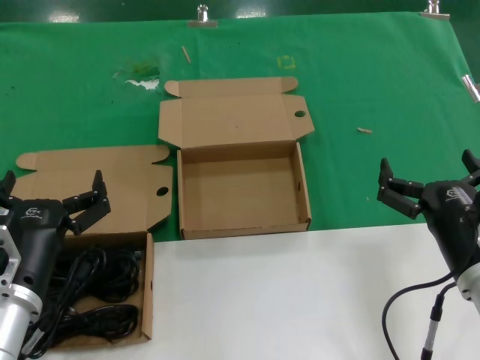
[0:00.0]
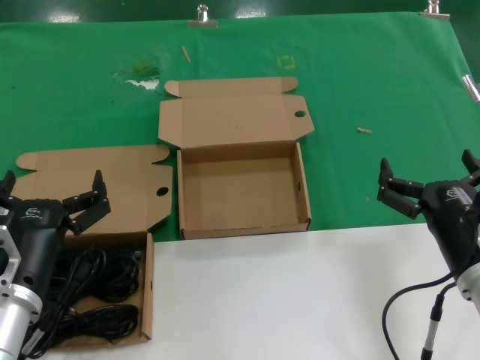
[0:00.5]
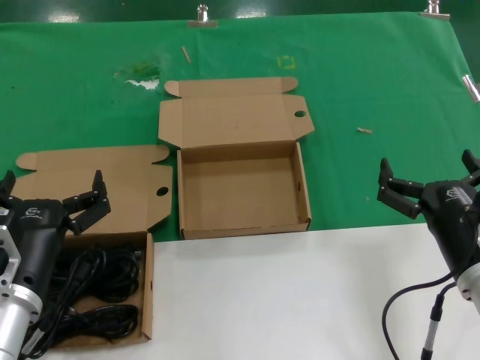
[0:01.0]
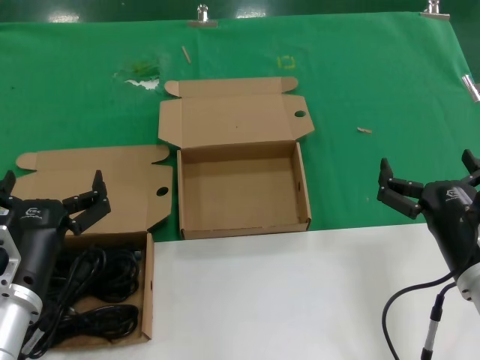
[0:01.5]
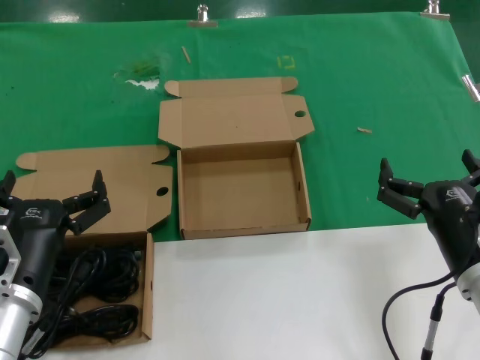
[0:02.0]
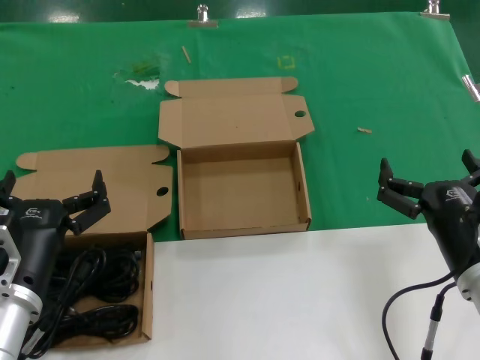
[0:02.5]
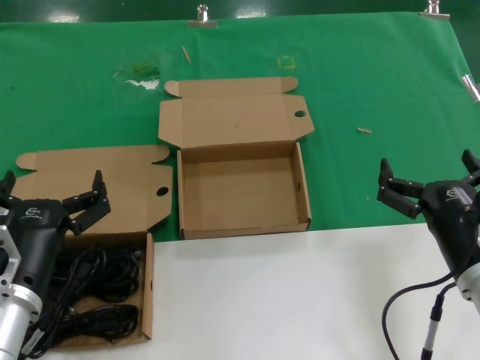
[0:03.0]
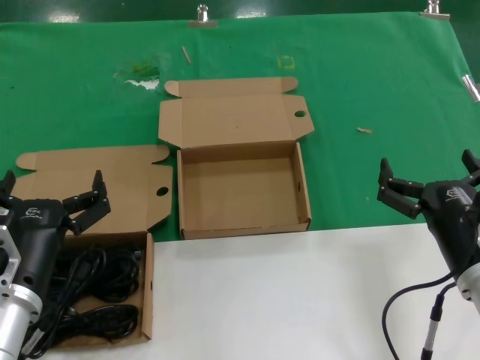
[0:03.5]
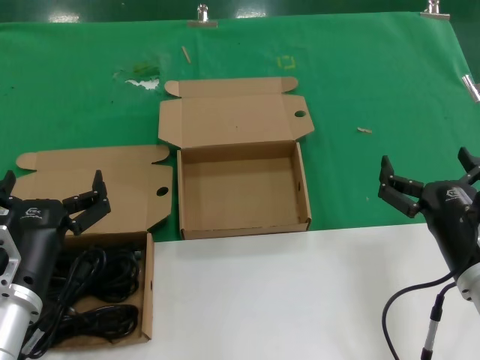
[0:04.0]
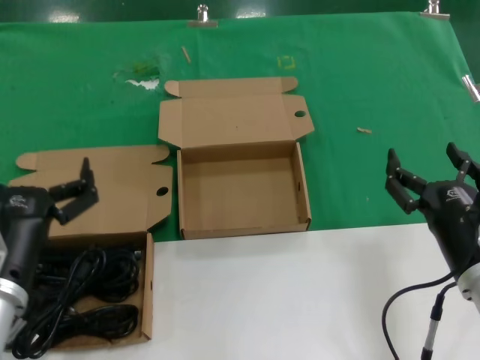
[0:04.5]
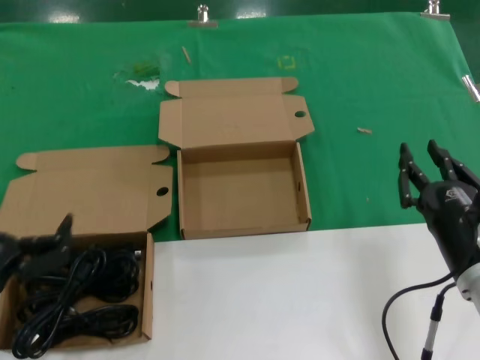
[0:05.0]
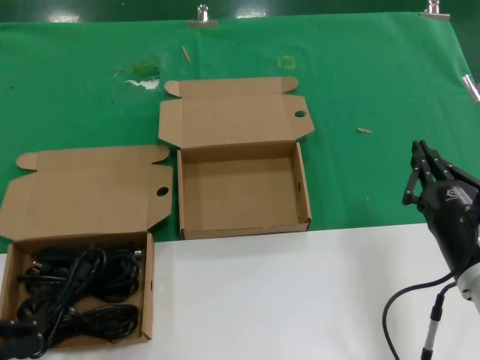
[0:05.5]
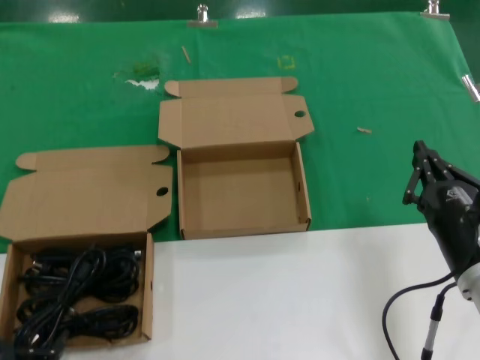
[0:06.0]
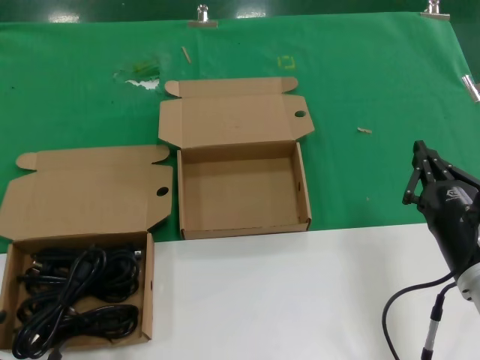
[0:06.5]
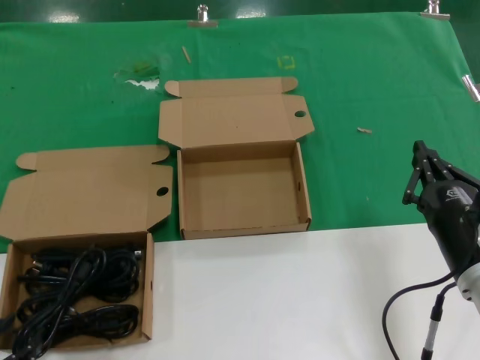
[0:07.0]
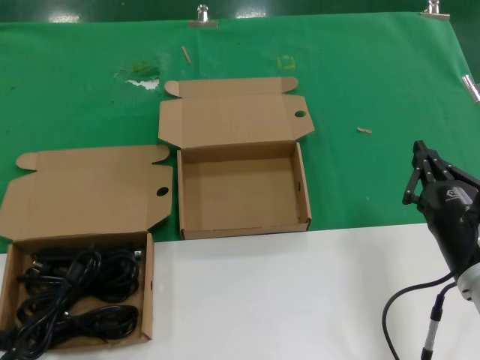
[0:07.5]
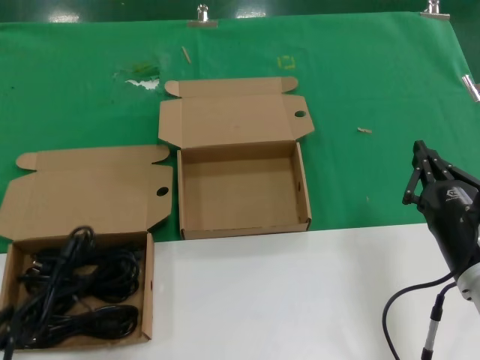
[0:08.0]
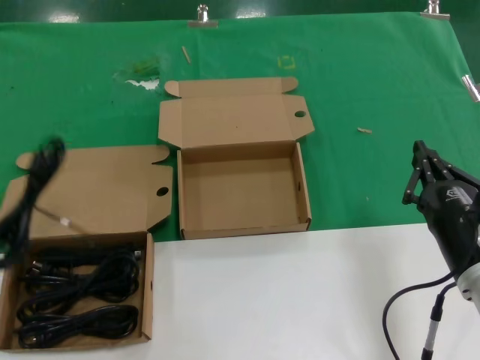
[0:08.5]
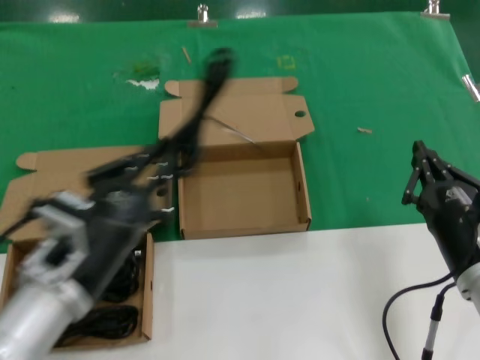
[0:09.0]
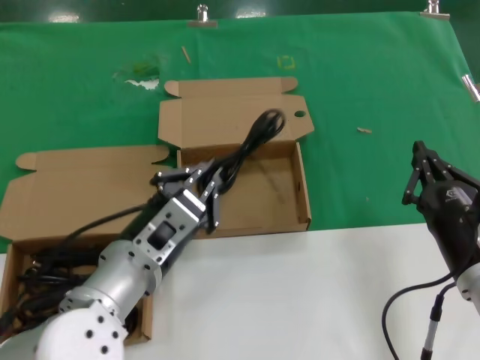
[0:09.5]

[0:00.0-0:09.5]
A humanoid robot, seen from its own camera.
Task of the whole recording: Pick up the power cord from the box containing it and place it in another box.
Step, 0:00.0 to 0:07.5: Grasp the data cable.
0:00.0 to 0:04.0: Neither hand changes place.
0:04.0 to 0:05.5: The left hand goes some 15 cm to the left and backward.
0:07.5 to 0:09.5: The left hand heads to the right and forward, covering about 30 cm.

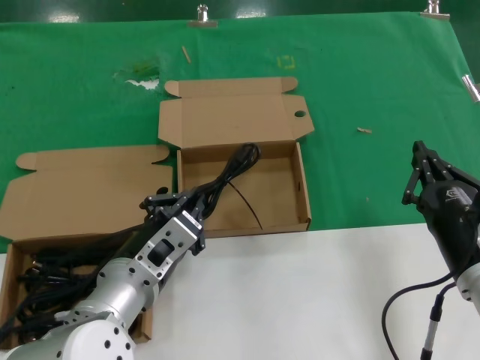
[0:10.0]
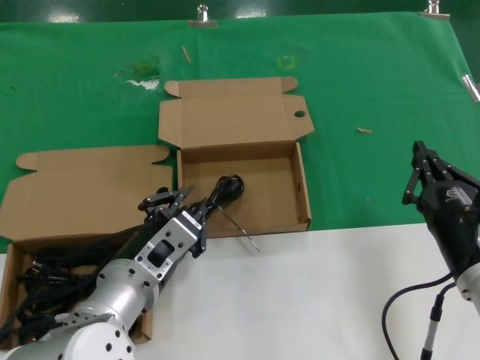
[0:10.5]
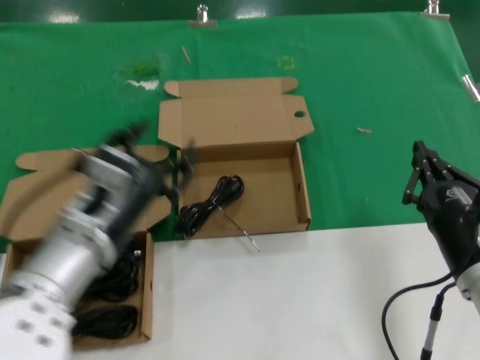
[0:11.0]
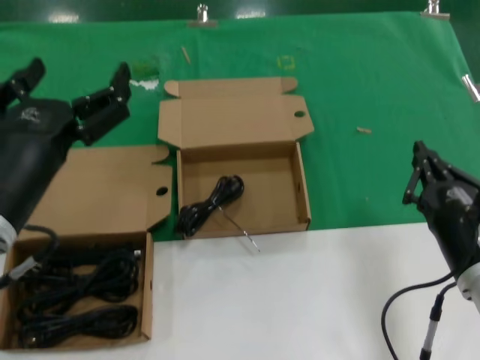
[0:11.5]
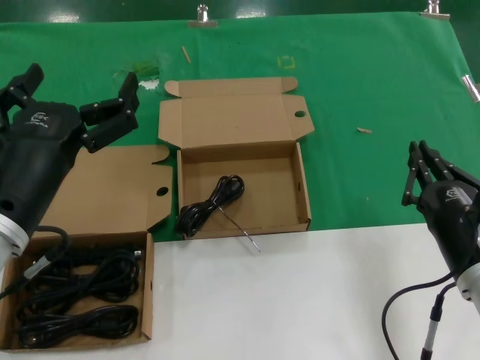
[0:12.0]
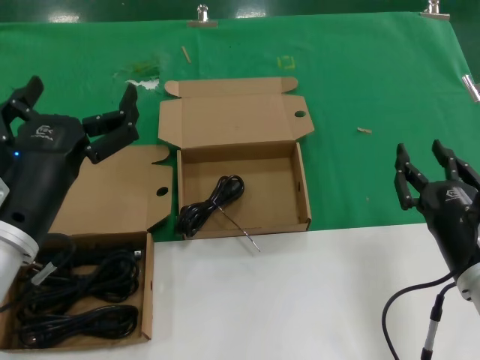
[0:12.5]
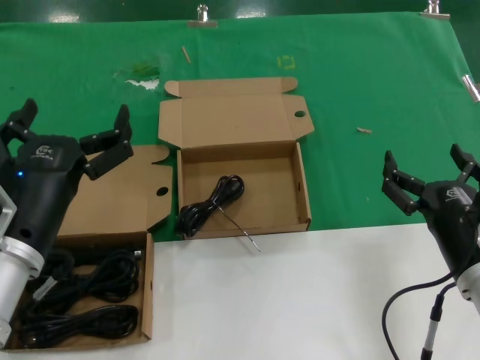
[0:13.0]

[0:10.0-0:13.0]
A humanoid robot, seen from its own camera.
Task of the whole recording: Pick up the power cord from the box containing it and place it in another box.
0:10.0 to 0:11.5: The left hand travels upward and to the left by roughly 15 cm.
0:11.5 to 0:13.0: The left hand is displaced downward by about 5 cm.
